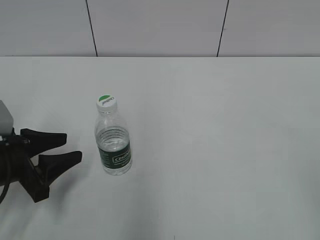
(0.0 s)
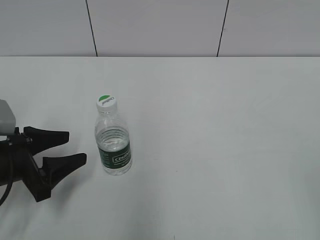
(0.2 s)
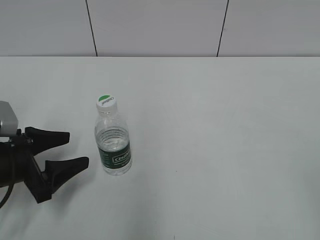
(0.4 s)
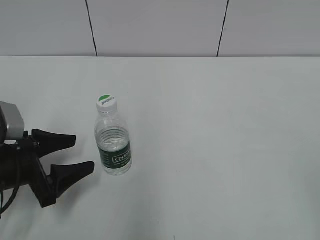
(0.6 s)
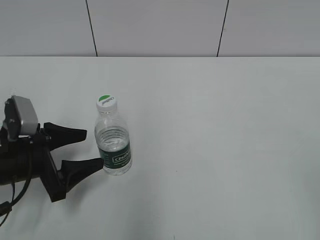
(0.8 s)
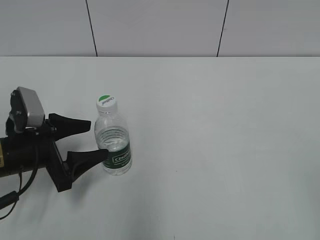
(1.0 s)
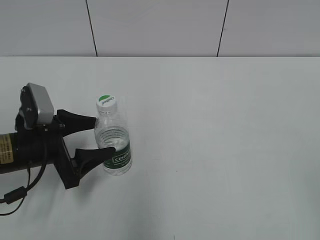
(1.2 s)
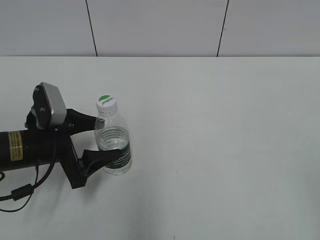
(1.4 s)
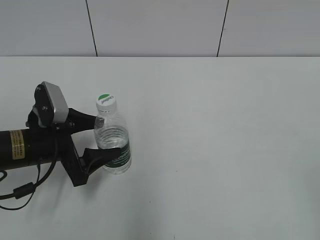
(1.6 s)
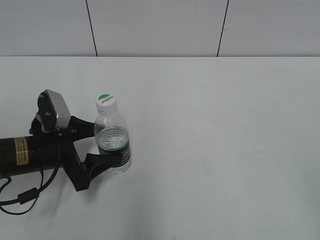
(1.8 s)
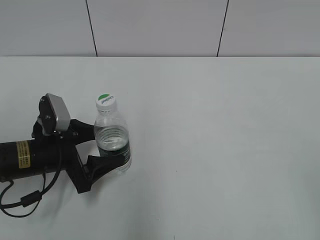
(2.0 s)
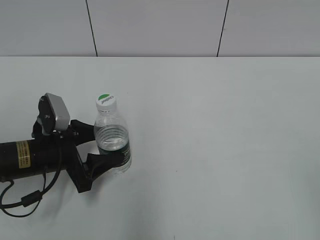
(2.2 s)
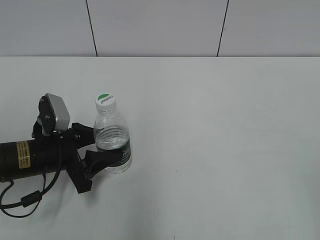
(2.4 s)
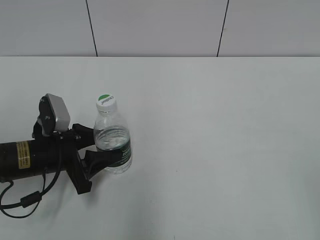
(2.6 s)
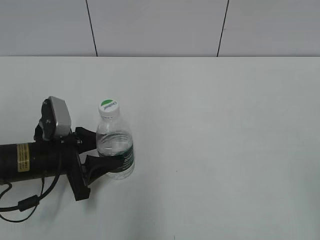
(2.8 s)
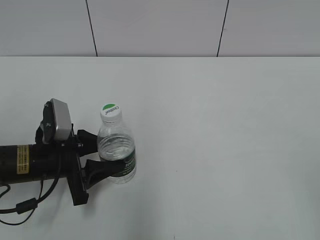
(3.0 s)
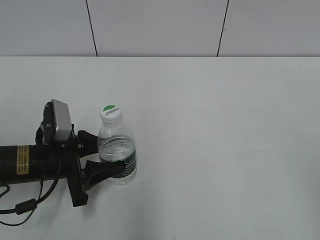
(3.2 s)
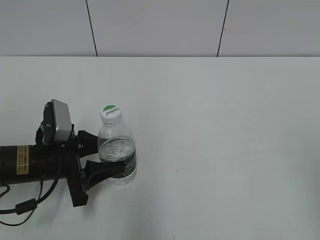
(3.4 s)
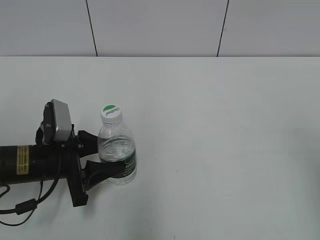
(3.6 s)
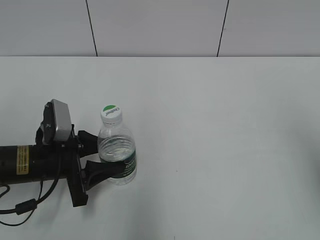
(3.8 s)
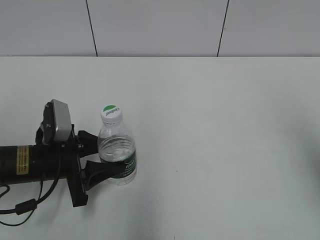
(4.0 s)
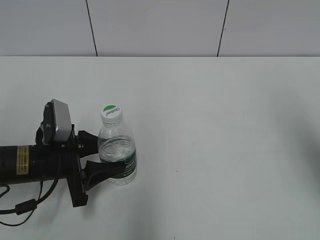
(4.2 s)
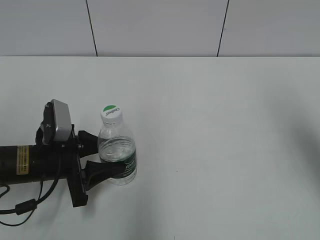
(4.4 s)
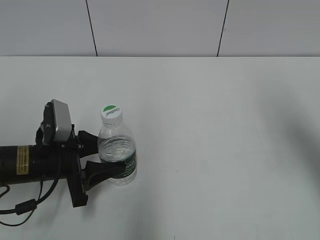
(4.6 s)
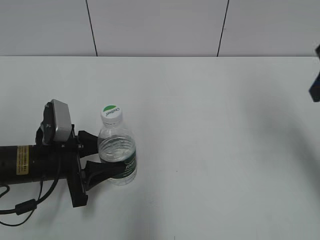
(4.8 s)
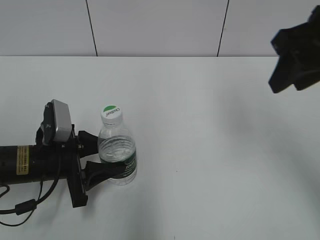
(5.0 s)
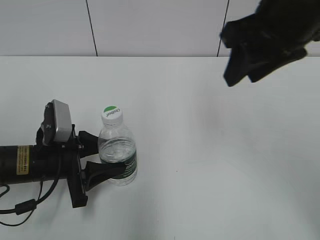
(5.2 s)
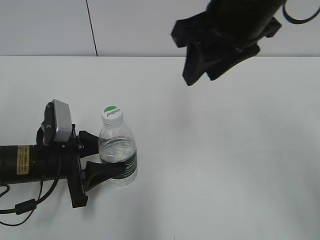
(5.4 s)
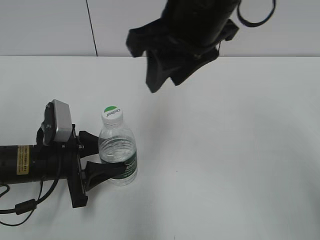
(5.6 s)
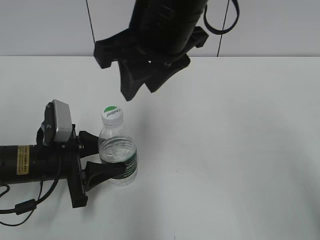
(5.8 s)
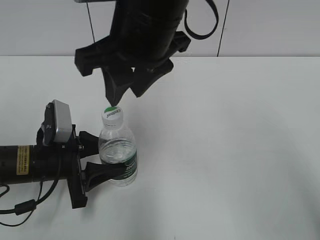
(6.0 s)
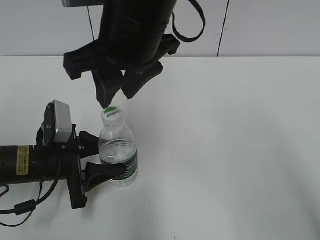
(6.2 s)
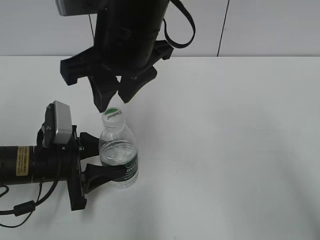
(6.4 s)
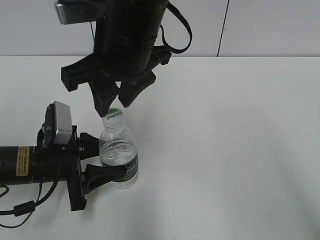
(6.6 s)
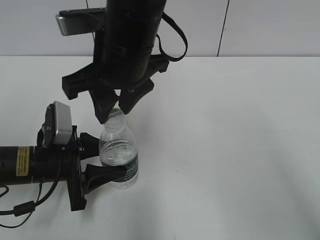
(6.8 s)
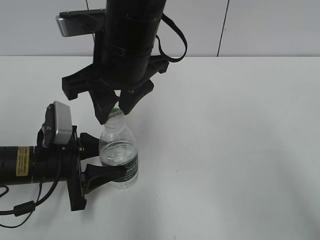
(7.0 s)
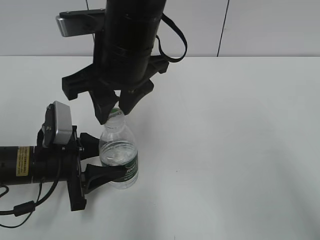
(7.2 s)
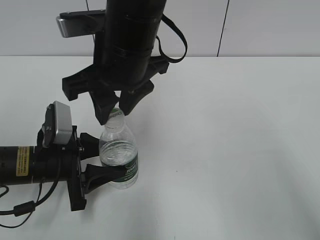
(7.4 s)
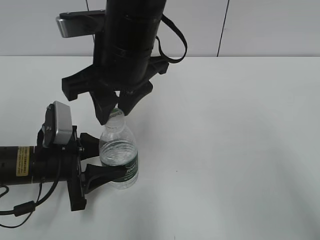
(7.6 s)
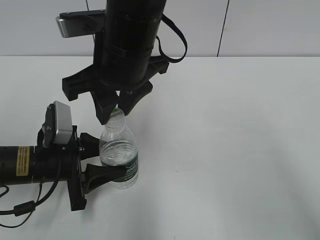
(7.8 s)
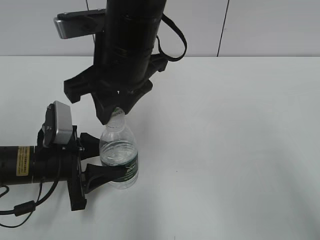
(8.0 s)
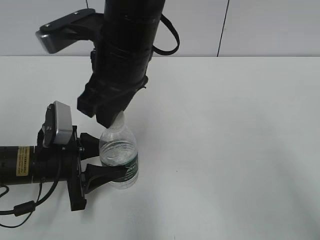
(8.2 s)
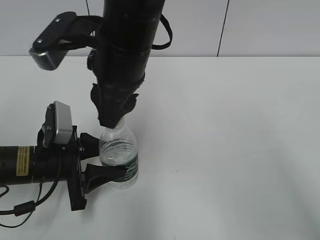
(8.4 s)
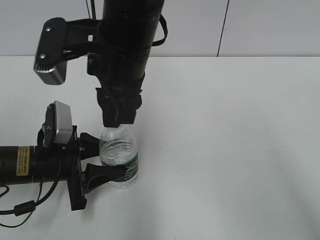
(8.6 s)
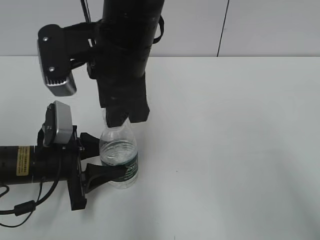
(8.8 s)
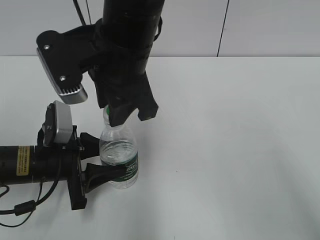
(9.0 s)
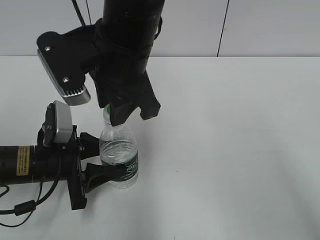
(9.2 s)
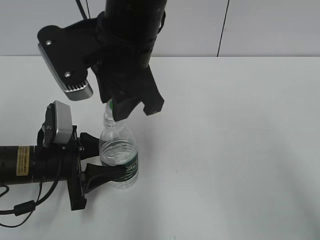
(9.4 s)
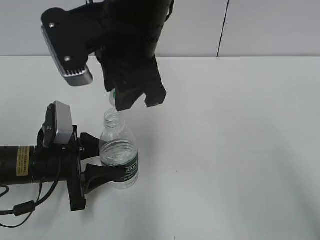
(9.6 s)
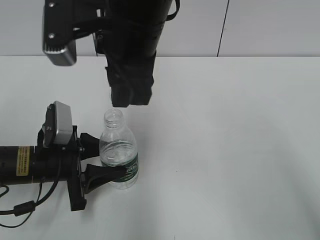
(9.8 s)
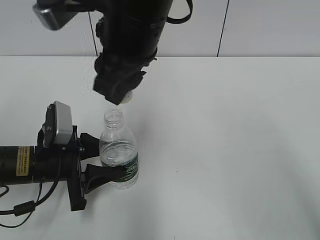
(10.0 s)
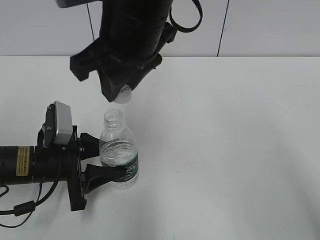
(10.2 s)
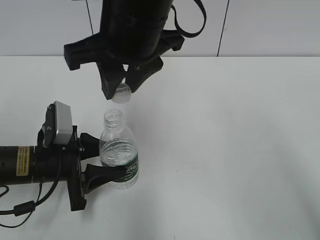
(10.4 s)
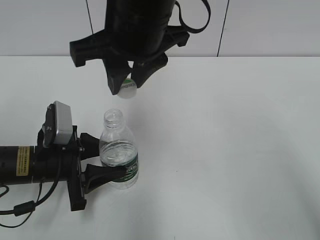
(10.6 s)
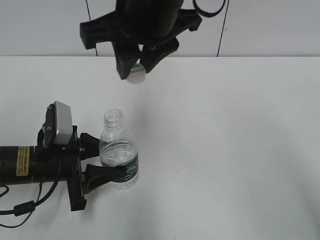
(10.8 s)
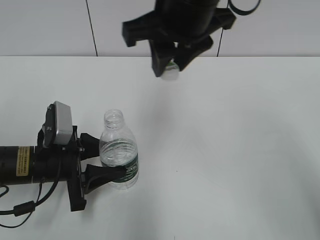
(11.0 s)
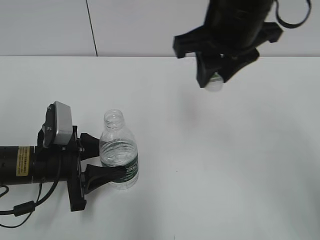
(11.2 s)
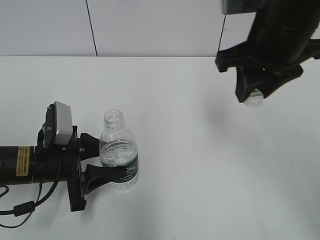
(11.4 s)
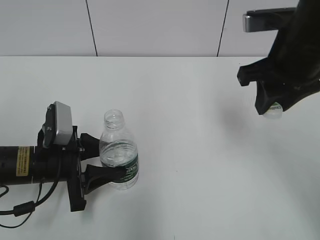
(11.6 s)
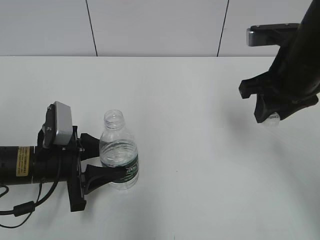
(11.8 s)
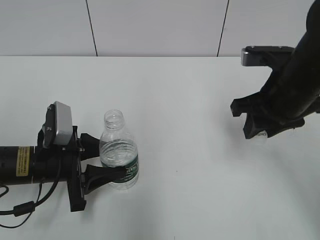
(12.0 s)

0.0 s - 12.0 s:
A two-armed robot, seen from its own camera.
Step, 0.0 s - 3.6 s: Grasp the bottle and move it to the center of the table with the left gripper.
Step, 3.8 s - 10.0 s: Unscrew the bottle cap with the right gripper while holding the bottle with the left gripper.
0.0 s - 1.6 s: The left gripper goes approximately 5 cm to the right, and opens up.
1.6 s - 3.0 s: The left gripper closes its fingers.
3.0 s - 4.4 s: The right gripper moves forward, some 20 cm, and closes its fingers.
4.4 s - 6.0 s: The right gripper travels to the left by approximately 30 cm.
6.0 s - 7.6 s: The right gripper ends up roughly 5 cm from where it was.
10.4 s - 12.0 s: The right gripper moves to the right and downward, about 25 cm.

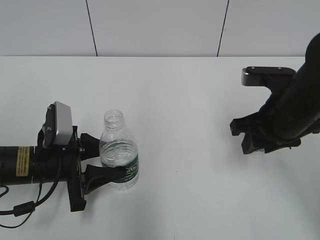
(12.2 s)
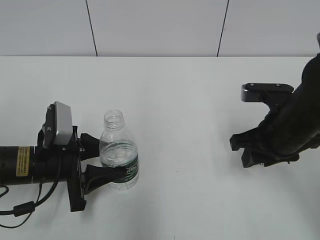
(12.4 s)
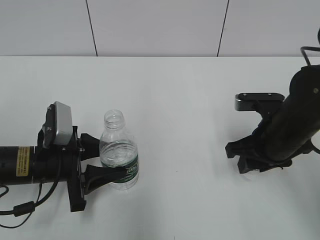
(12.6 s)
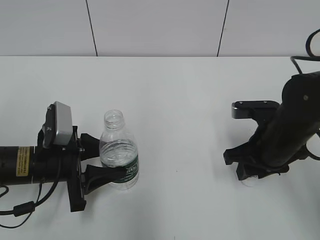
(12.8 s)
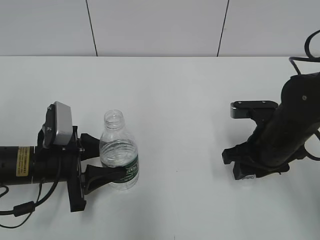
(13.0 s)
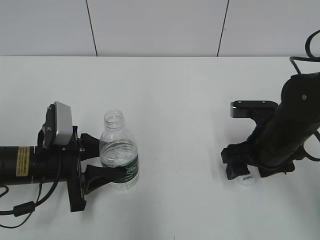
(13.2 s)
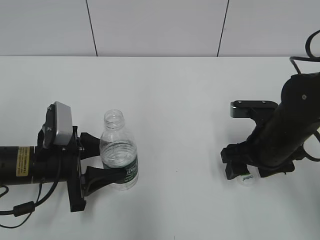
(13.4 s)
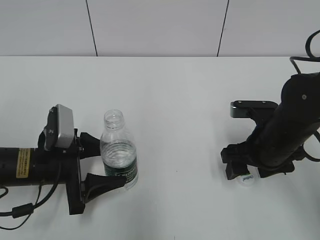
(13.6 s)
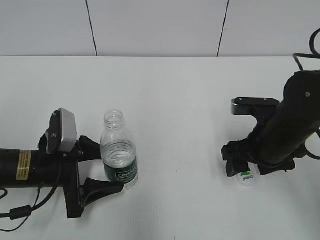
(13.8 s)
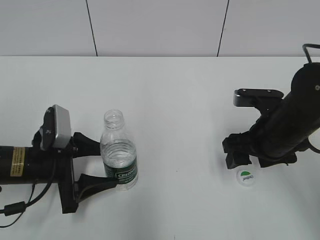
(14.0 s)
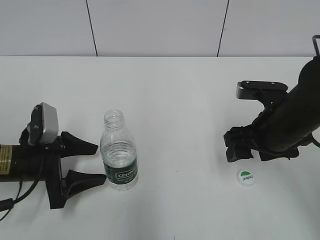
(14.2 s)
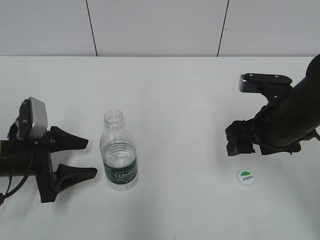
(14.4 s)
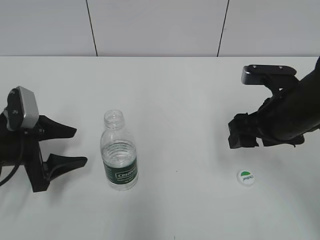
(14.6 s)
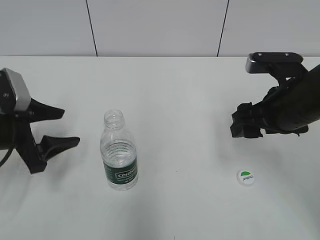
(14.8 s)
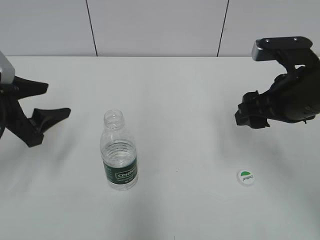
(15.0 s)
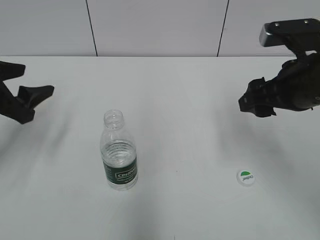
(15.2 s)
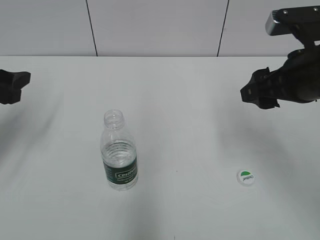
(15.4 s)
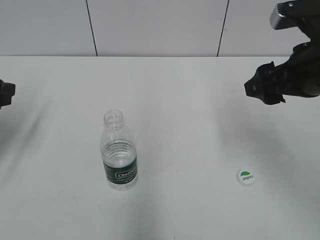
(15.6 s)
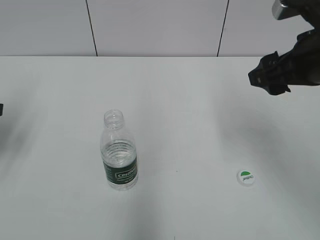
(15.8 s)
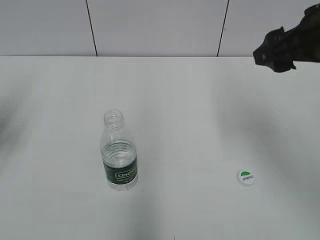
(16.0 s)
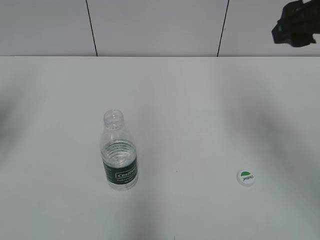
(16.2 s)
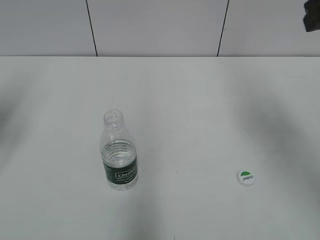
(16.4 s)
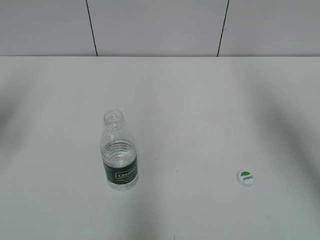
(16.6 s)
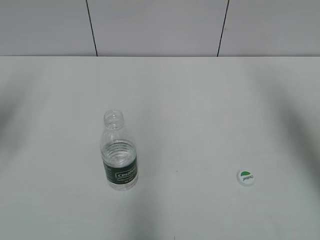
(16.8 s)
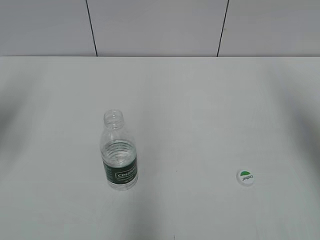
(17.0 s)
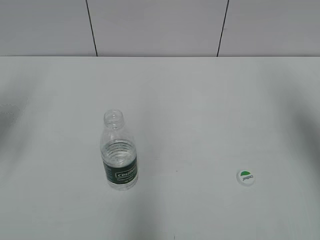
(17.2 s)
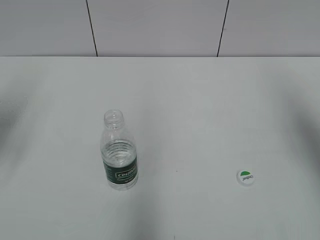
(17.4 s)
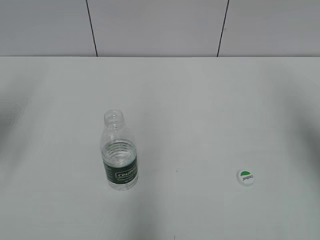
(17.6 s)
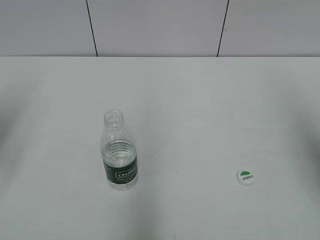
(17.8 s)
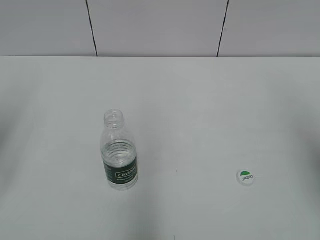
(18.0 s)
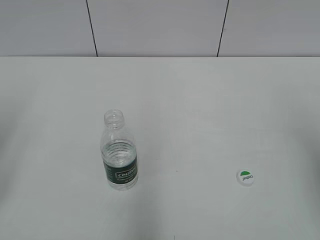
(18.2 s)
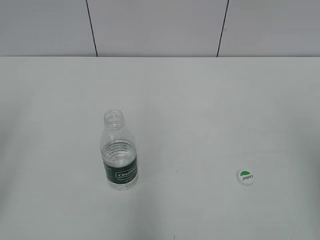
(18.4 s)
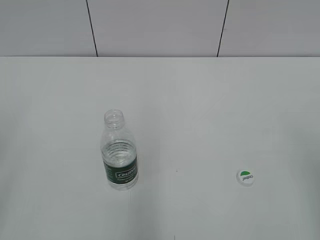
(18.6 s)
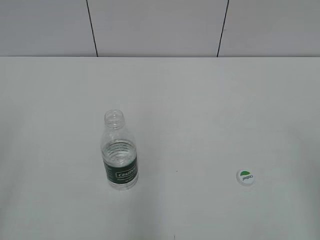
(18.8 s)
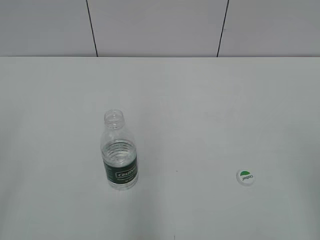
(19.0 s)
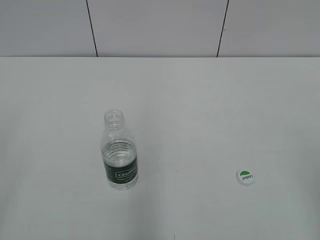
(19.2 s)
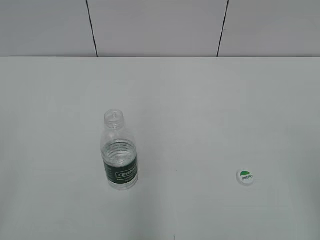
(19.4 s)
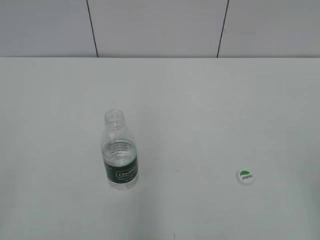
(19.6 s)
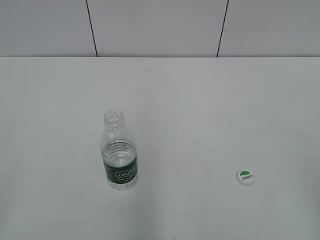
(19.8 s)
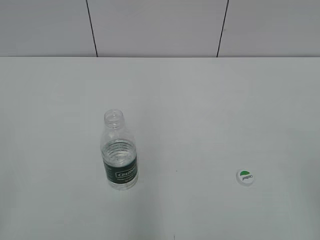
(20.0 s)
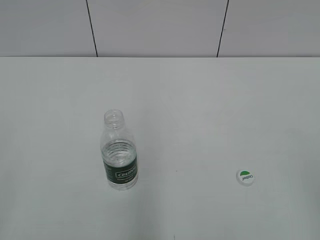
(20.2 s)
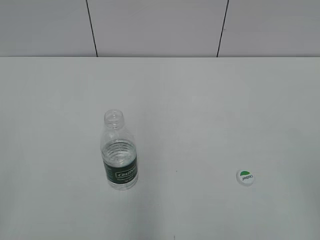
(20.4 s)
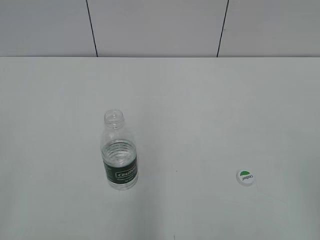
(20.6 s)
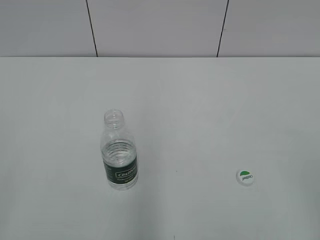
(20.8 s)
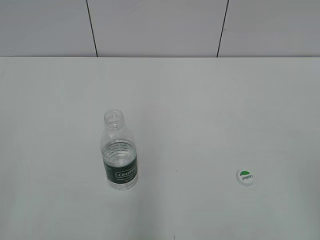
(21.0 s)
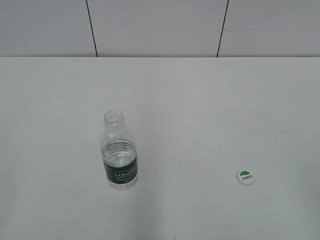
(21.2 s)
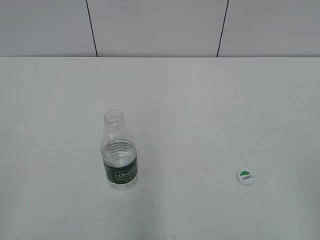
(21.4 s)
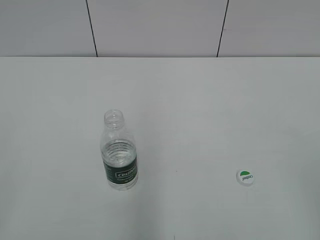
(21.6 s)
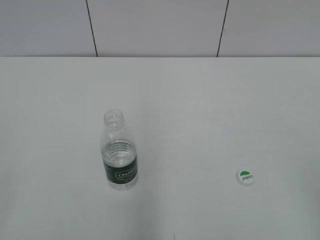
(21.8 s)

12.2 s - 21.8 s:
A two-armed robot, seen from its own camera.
Step, 13.4 s - 14.6 s: Place the bottle on the table with the left gripper.
12.2 s - 13.8 s: The left gripper opens up. The right gripper heads downward, covering approximately 5 cm, and opens.
13.8 s - 15.4 s: The right gripper is displaced upward by roughly 10 cm, while the left gripper shifts about 15 cm upward and to the left.
15.4 s - 17.0 s: The left gripper goes about 5 cm upward. The right gripper is displaced to the right and upward by roughly 15 cm.
17.0 s - 18.6 s: Both grippers travel together backward, approximately 15 cm.
20.2 s - 21.8 s: Neither gripper changes place.

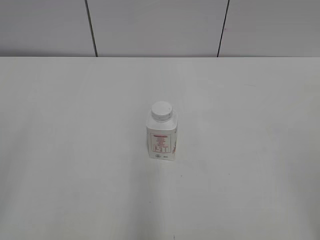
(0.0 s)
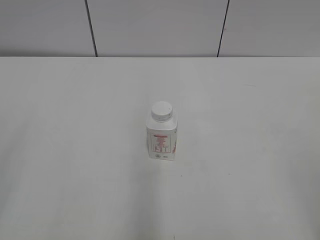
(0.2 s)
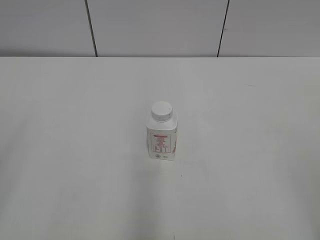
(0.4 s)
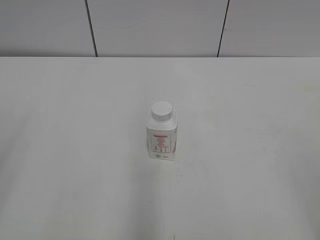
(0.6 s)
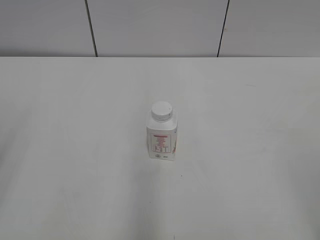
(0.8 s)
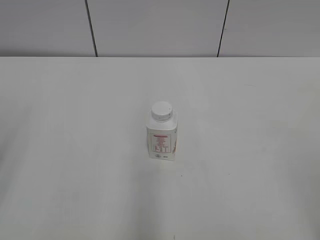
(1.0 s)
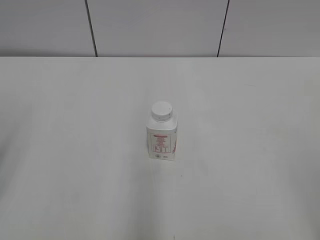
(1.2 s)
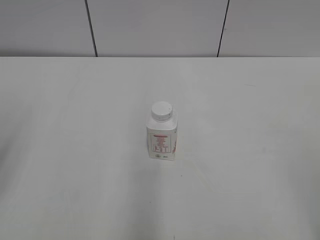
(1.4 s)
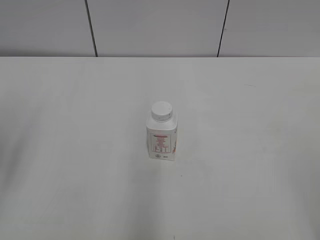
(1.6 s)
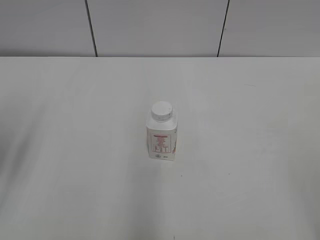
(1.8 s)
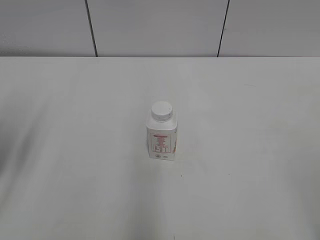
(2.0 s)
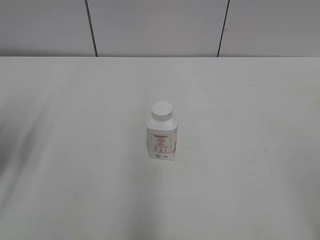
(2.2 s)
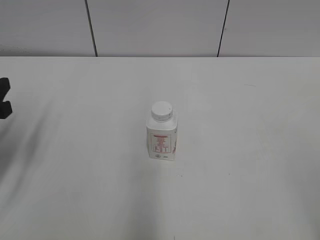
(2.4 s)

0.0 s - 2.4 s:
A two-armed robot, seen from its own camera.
1.2 s - 2.4 s: The left gripper goes some 15 cm forward and downward.
